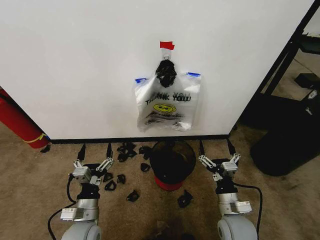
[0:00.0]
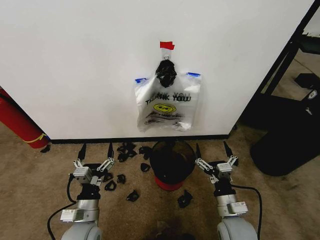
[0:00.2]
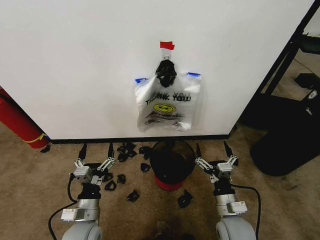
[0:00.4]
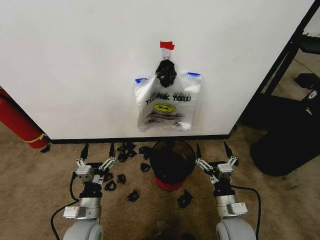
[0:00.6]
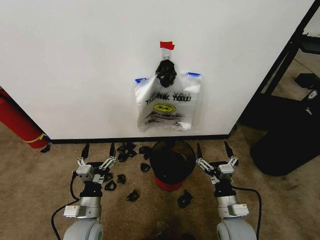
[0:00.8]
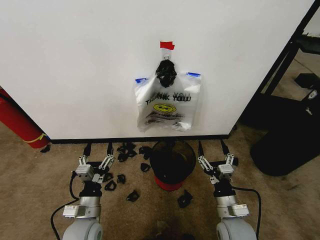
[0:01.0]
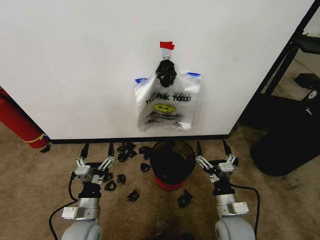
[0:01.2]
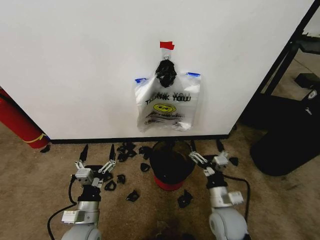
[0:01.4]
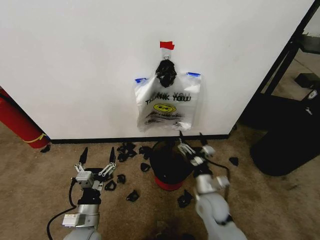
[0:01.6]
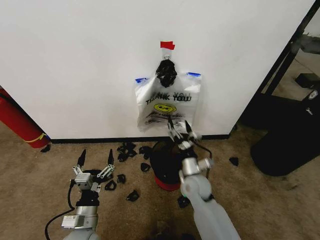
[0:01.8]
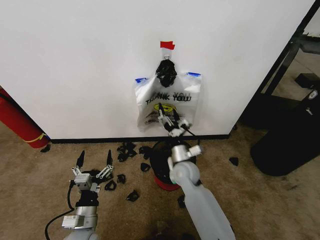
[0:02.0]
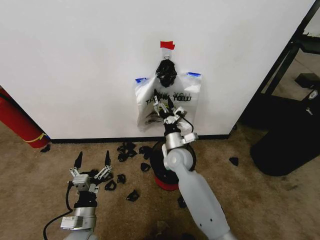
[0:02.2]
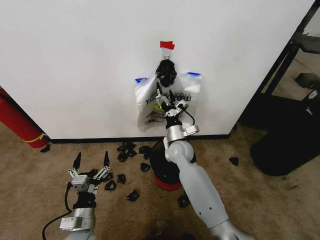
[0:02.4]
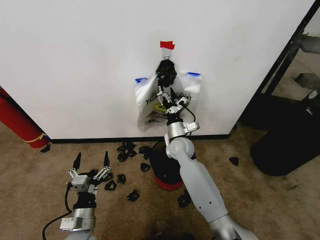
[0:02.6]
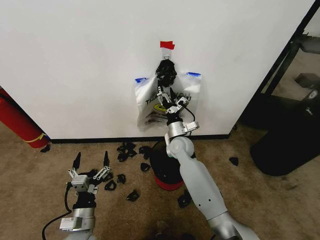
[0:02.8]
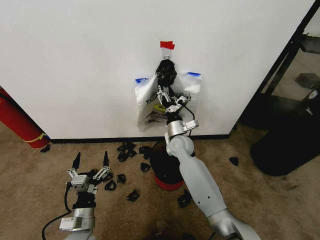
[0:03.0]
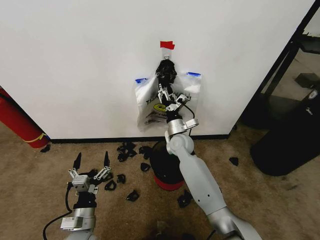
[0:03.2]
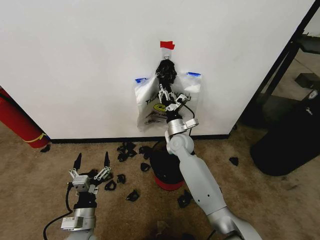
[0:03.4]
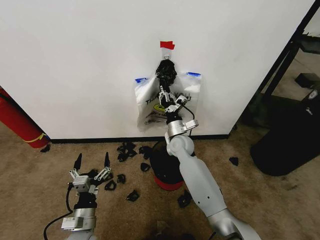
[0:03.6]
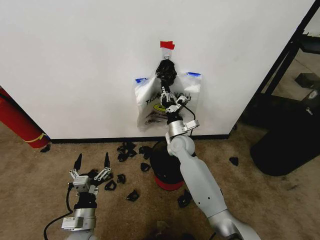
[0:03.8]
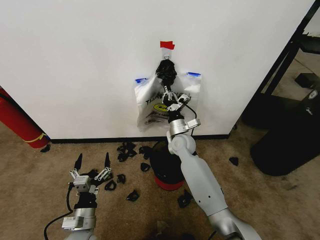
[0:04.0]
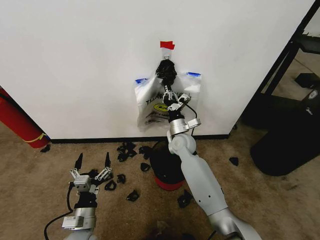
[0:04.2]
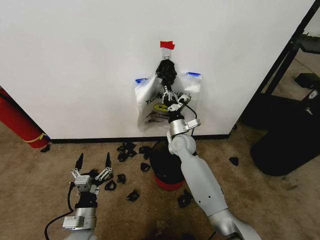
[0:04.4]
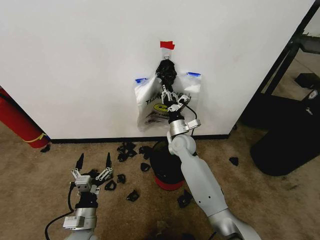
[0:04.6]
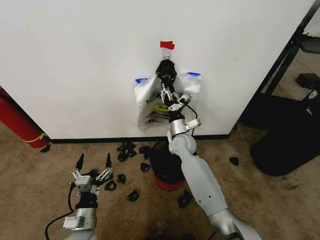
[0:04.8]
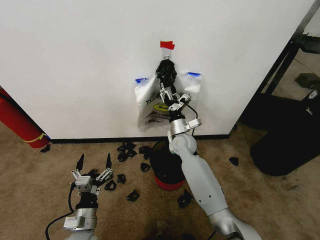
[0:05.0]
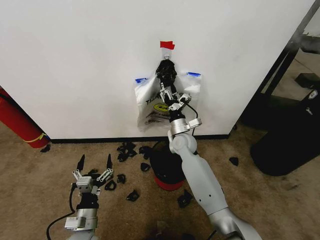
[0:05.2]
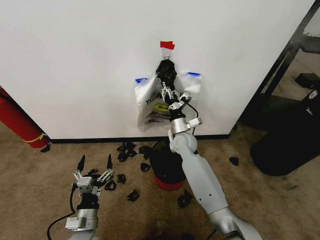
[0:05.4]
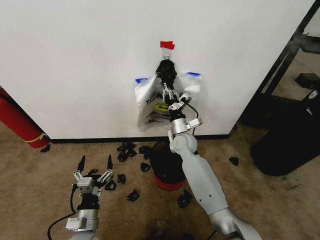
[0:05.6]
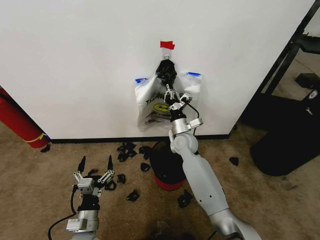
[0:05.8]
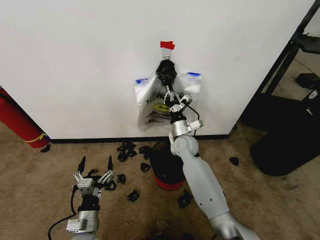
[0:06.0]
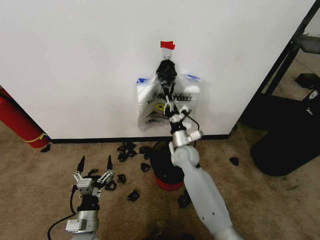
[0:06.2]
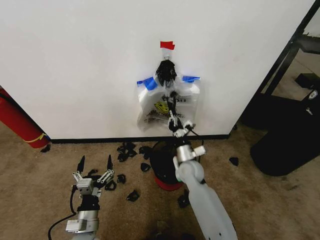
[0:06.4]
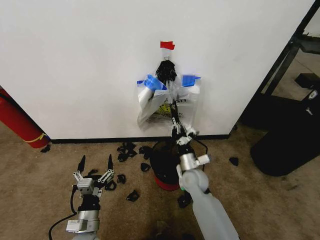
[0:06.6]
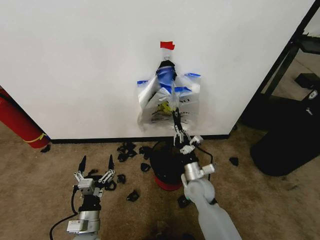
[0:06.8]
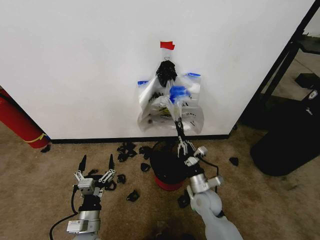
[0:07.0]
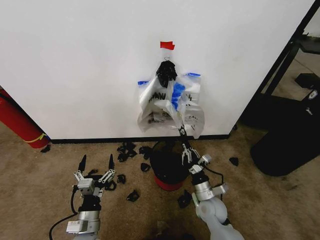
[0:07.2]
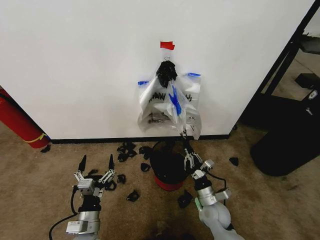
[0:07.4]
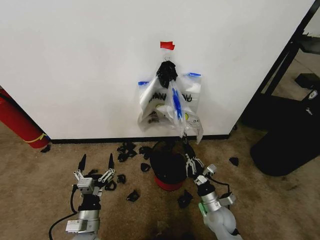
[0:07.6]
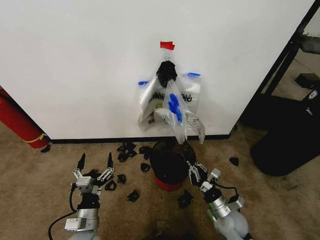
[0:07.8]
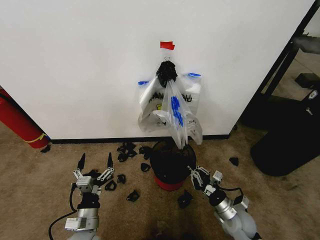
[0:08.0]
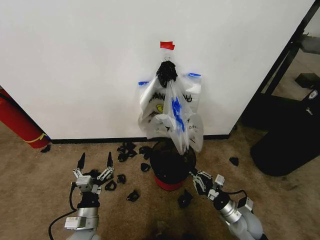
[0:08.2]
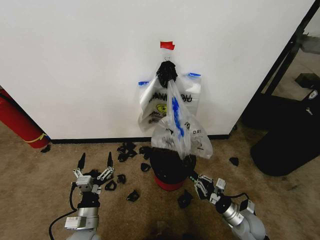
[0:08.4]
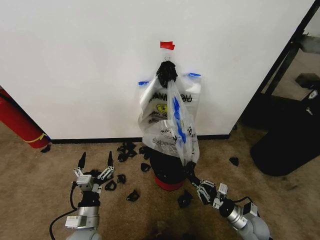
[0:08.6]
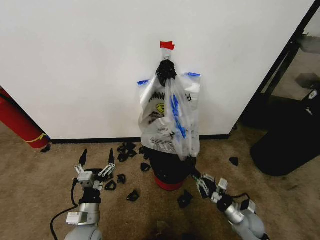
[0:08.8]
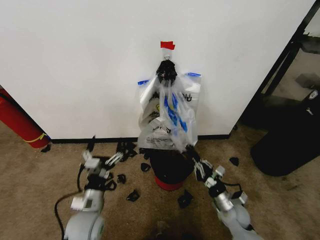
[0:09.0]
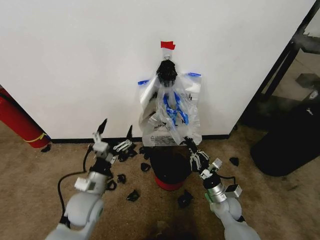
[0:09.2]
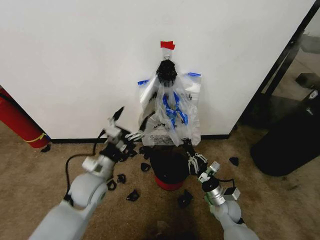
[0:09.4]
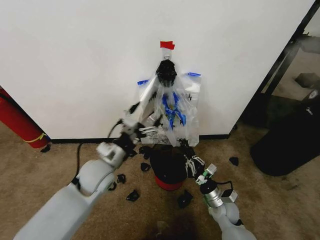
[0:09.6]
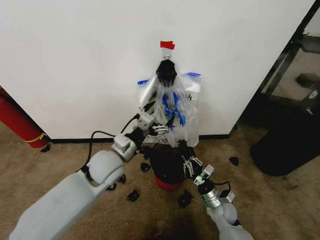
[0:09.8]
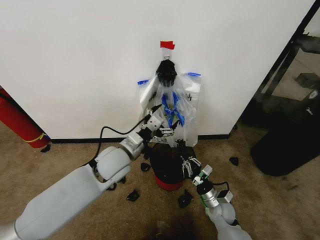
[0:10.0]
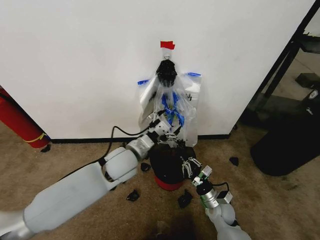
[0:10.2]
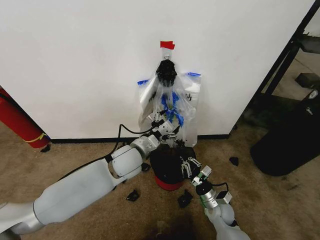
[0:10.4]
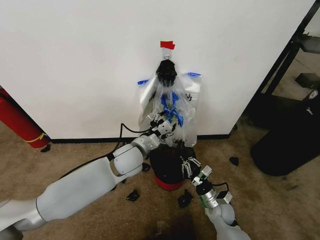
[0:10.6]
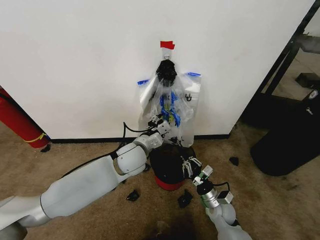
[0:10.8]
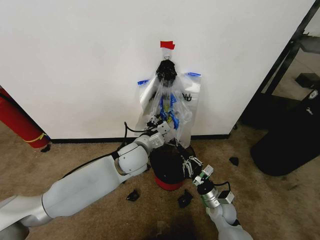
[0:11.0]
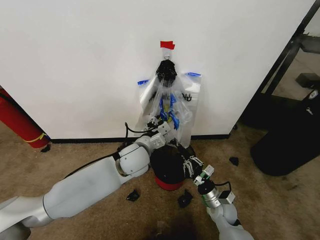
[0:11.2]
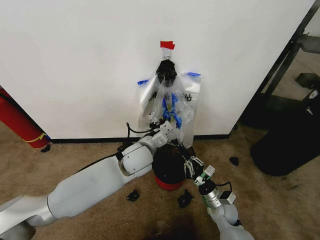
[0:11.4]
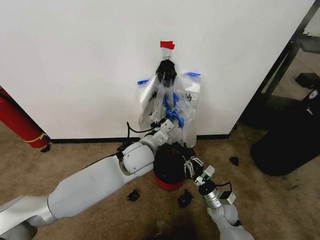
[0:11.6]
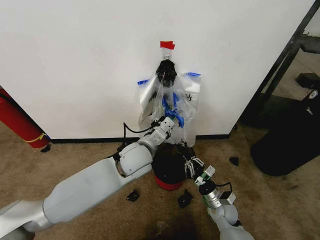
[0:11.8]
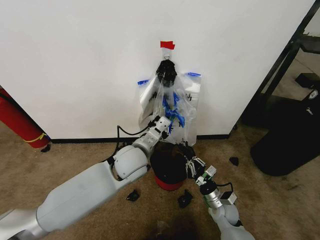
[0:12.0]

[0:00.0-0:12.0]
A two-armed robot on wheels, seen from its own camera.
Task of the whole recording: Pick up the garbage bag from the wall and place it over the trash bin.
0:01.6 to 0:03.0: The right gripper heads forward and to the left, covering about 20 cm.
0:03.0 to 0:04.4: The right gripper closes up.
0:04.4 to 0:06.0: The right gripper opens, then closes once more.
0:06.0 to 0:07.6: The right gripper shifts approximately 30 cm backward, downward and to the right.
0:07.6 to 0:09.0: The left gripper heads forward, covering some 5 cm; the right gripper goes about 5 cm to the right.
0:09.0 to 0:10.4: The left gripper moves forward, upward and to the right, approximately 20 cm.
0:10.4 to 0:12.0: The left gripper closes up.

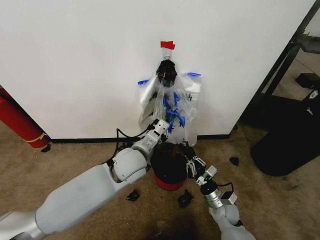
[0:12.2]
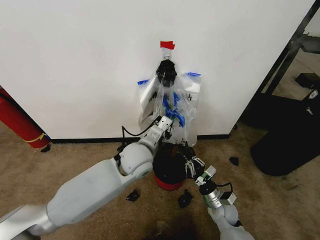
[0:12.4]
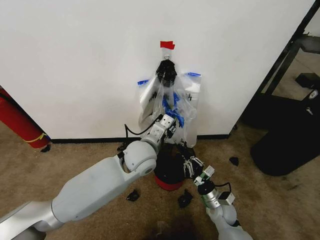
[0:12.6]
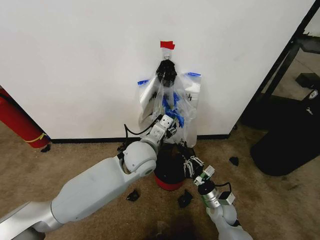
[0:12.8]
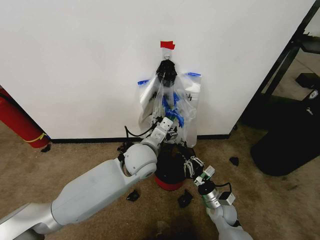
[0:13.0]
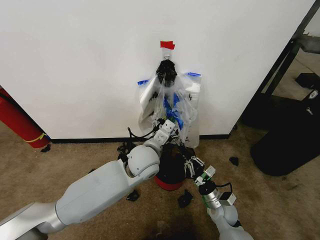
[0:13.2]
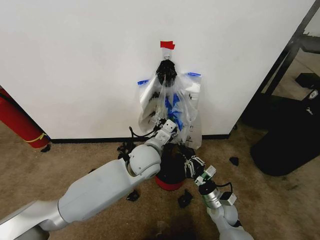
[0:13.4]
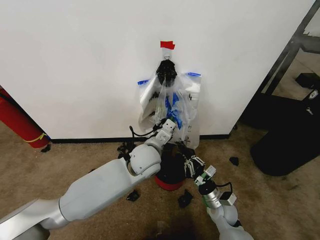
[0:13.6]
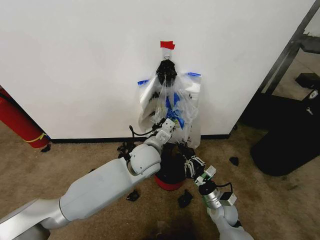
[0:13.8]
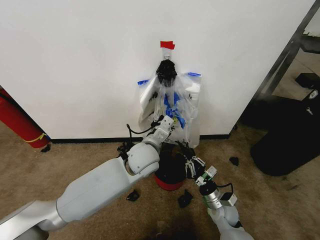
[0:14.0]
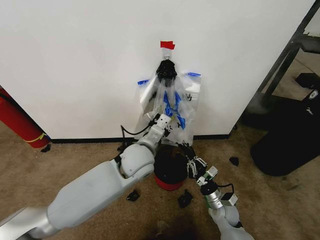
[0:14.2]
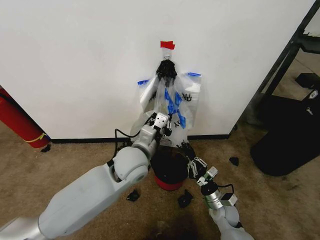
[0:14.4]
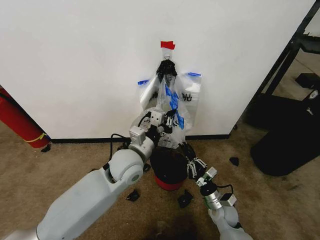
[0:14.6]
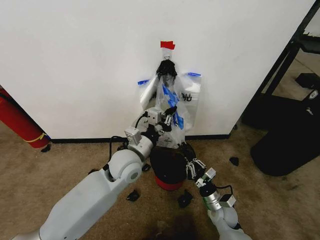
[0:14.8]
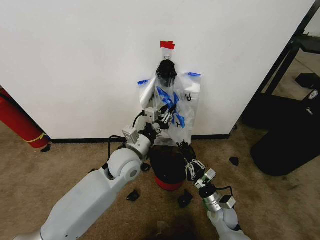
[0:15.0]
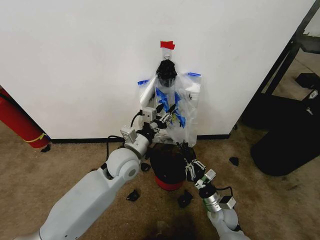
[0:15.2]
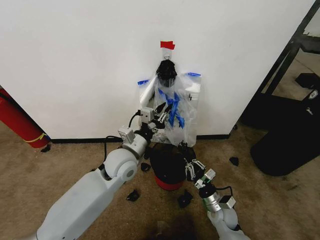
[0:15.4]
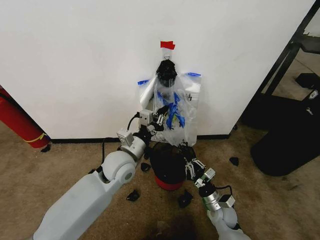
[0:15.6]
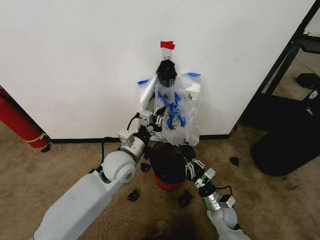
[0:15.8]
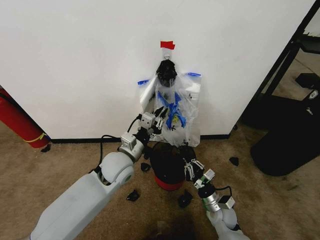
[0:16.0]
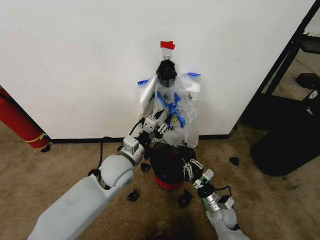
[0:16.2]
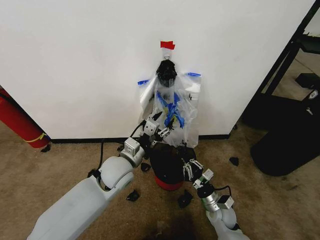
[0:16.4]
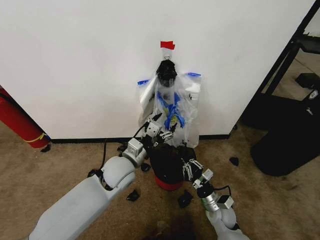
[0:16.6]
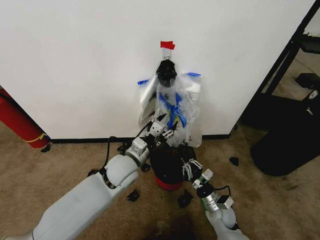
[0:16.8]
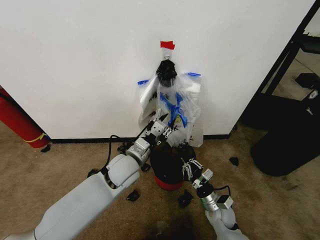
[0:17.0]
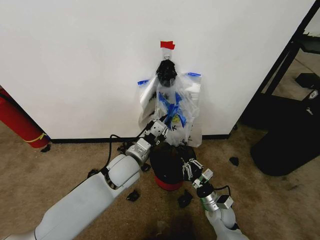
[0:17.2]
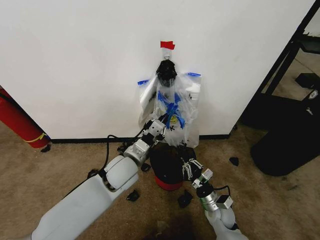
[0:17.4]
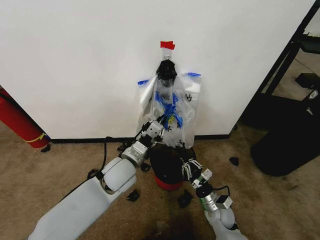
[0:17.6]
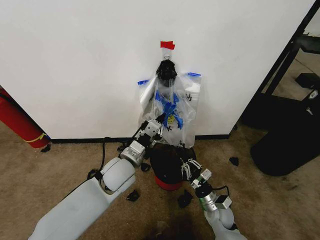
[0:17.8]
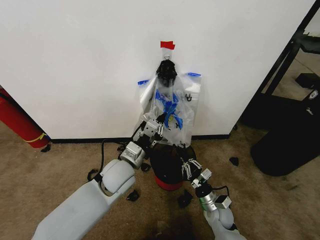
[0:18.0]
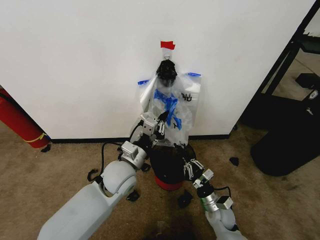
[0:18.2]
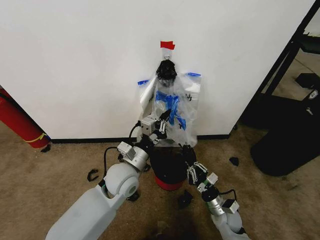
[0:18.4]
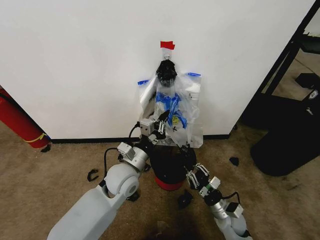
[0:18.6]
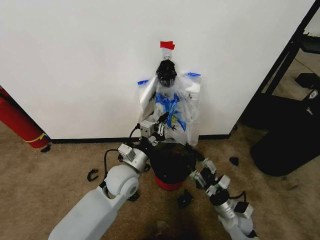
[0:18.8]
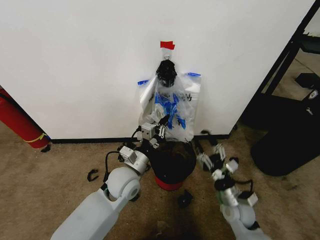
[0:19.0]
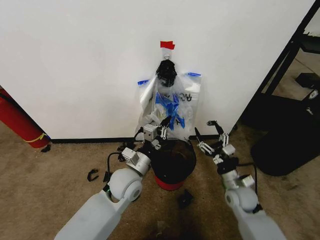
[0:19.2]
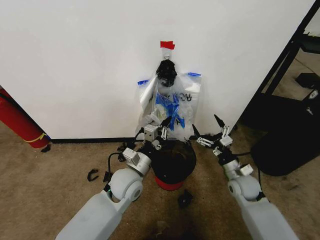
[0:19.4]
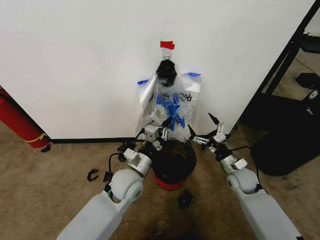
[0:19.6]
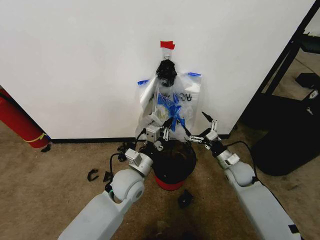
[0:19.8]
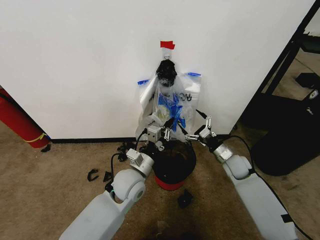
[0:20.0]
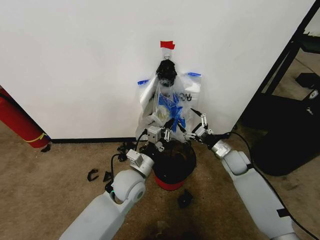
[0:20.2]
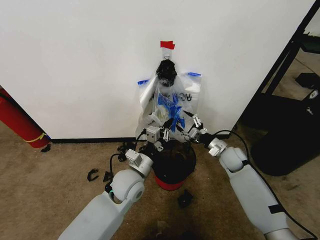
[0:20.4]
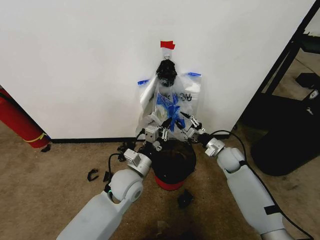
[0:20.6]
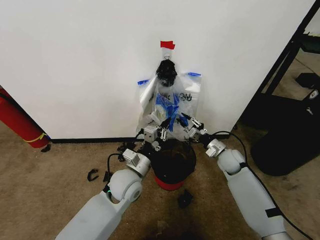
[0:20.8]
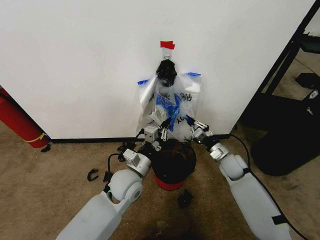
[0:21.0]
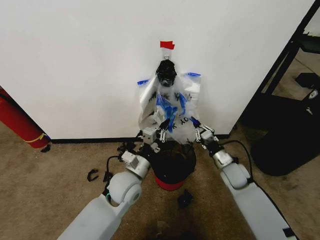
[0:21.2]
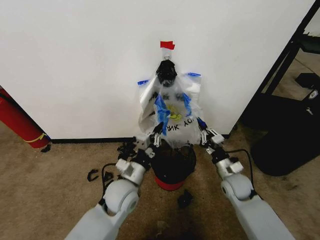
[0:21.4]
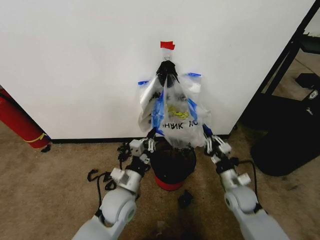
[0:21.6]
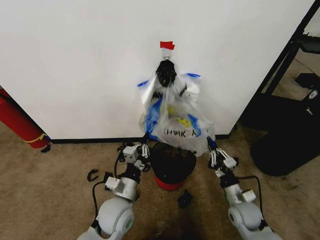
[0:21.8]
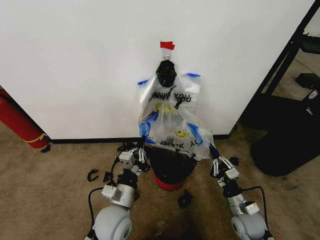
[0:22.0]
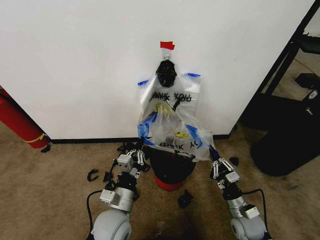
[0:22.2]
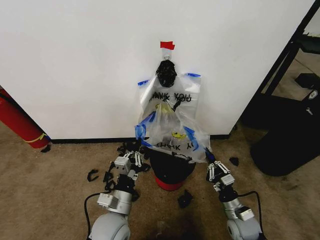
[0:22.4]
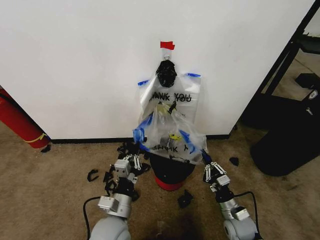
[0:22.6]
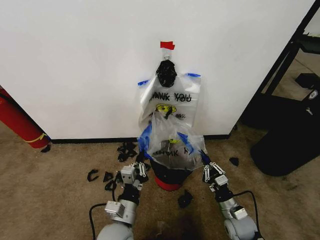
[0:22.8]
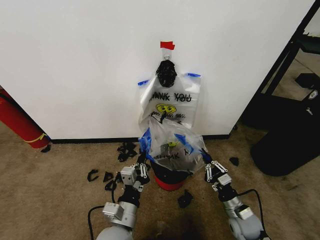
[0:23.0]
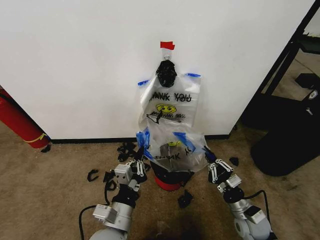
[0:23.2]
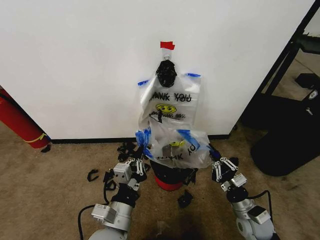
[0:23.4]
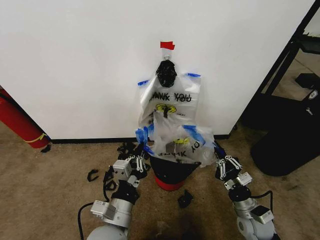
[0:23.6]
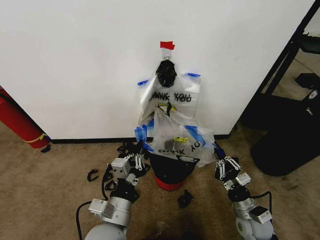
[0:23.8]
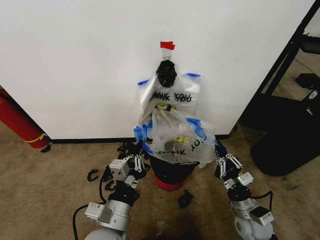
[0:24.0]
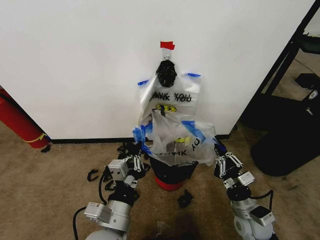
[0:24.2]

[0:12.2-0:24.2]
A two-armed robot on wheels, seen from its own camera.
Task of the whole recording: Pick up the garbage bag from the wall and place it over the trash bin.
0:12.2 to 0:13.8: The left gripper shifts by roughly 5 cm, and opens, then closes again.
0:13.8 to 0:15.2: The left gripper moves to the left, some 5 cm.
0:15.2 to 0:16.6: The left gripper closes, then reopens.
0:16.6 to 0:18.2: The left gripper closes.
0:18.2 to 0:19.8: The right gripper travels forward, upward and to the right by approximately 20 cm, and opens its fingers.
0:19.8 to 0:21.2: The right gripper closes its fingers.
0:21.2 to 0:22.6: The right gripper goes some 20 cm backward and downward; the left gripper heads backward, covering approximately 15 cm.
0:22.6 to 0:24.2: Both grippers move upward, about 10 cm.
